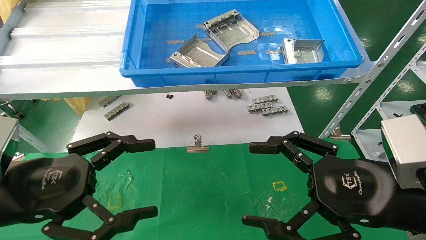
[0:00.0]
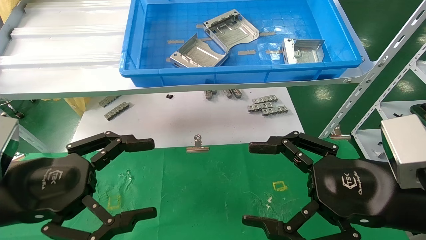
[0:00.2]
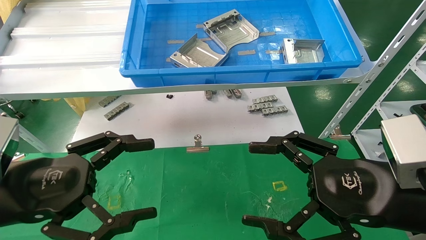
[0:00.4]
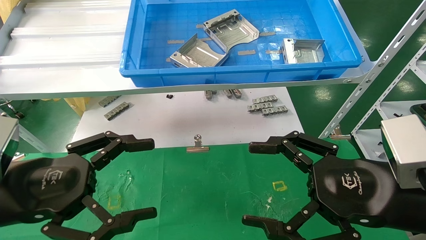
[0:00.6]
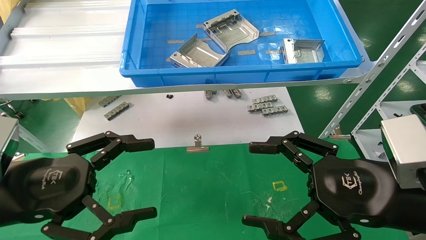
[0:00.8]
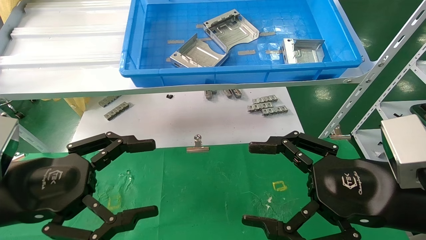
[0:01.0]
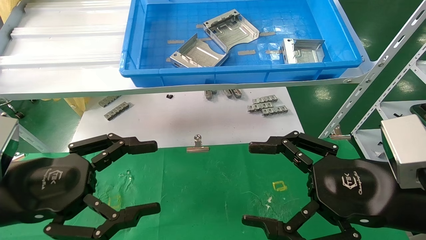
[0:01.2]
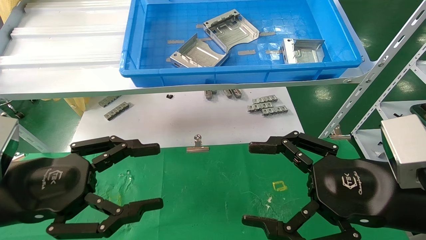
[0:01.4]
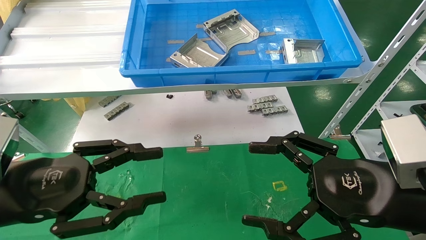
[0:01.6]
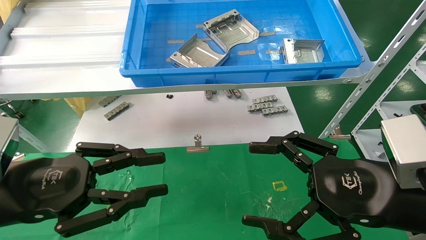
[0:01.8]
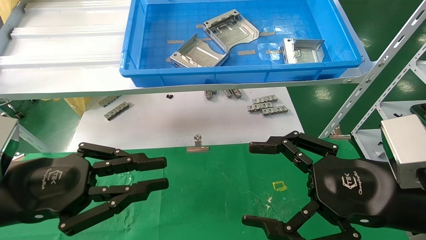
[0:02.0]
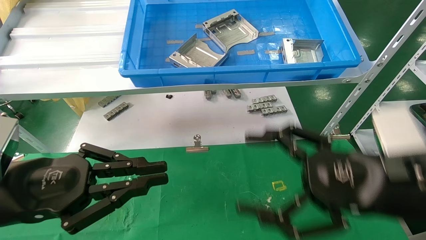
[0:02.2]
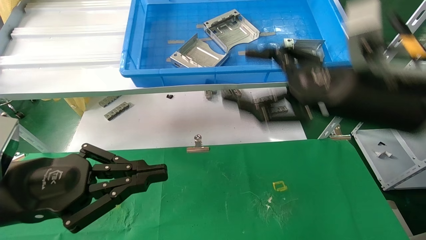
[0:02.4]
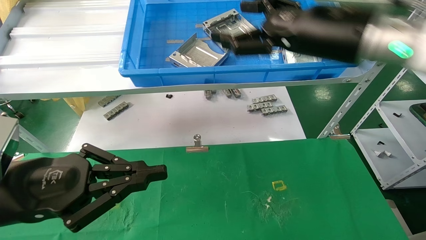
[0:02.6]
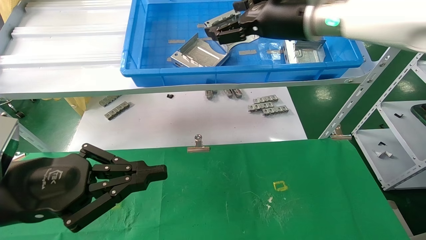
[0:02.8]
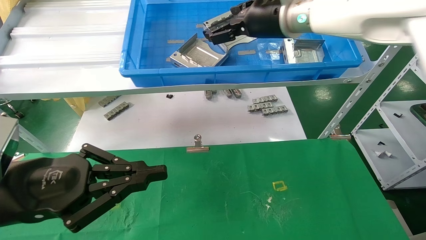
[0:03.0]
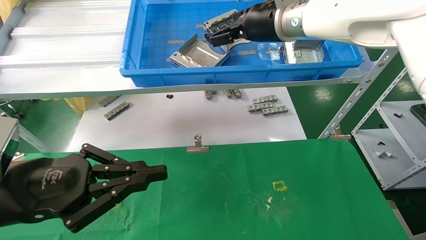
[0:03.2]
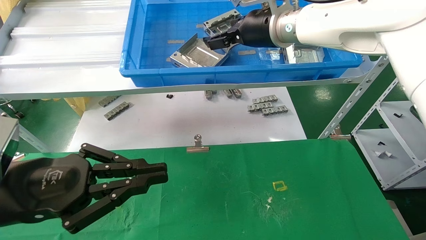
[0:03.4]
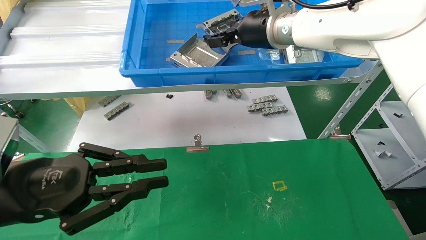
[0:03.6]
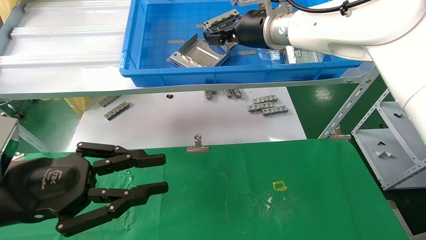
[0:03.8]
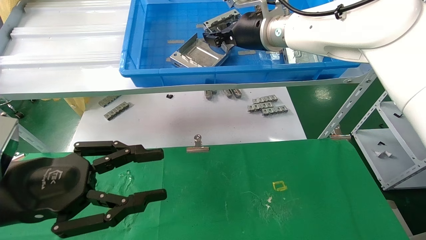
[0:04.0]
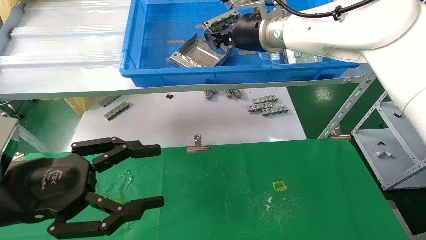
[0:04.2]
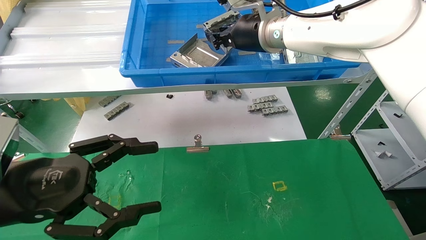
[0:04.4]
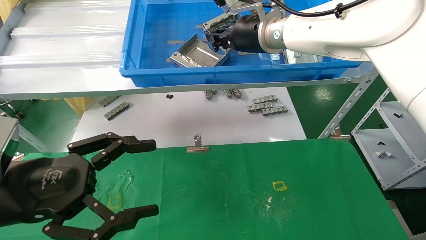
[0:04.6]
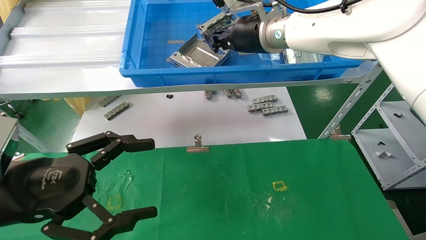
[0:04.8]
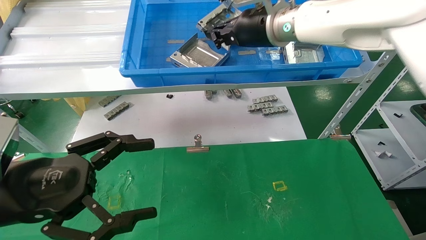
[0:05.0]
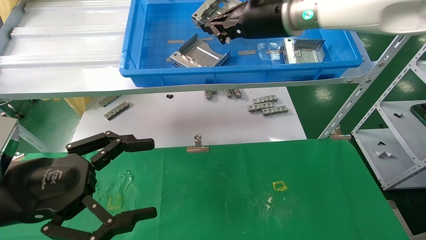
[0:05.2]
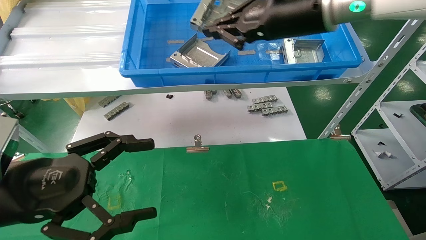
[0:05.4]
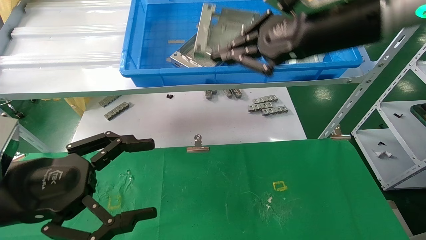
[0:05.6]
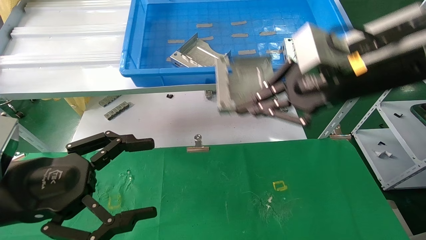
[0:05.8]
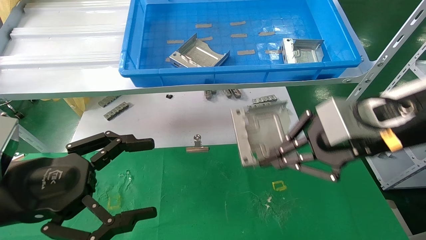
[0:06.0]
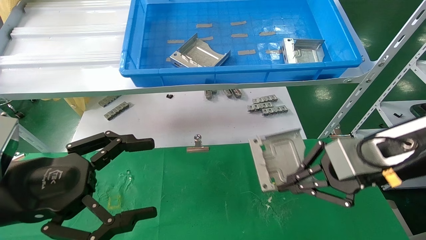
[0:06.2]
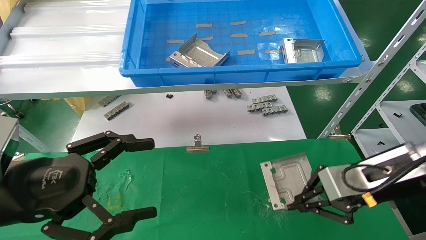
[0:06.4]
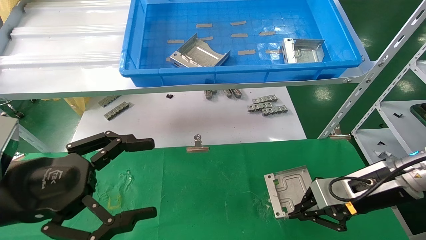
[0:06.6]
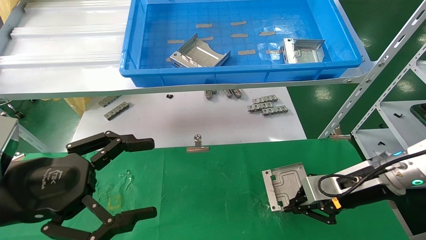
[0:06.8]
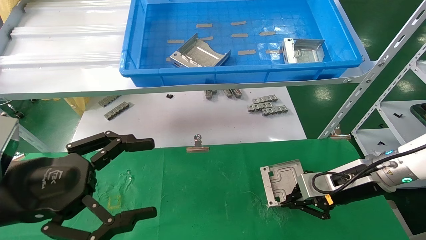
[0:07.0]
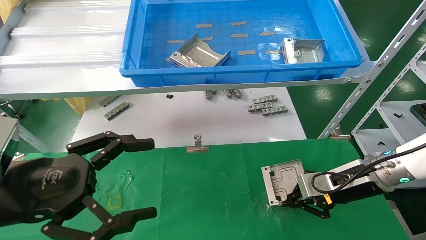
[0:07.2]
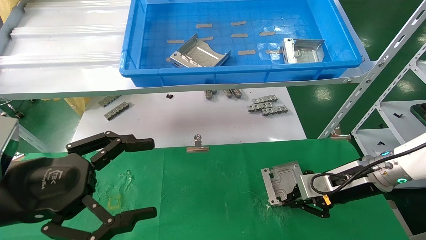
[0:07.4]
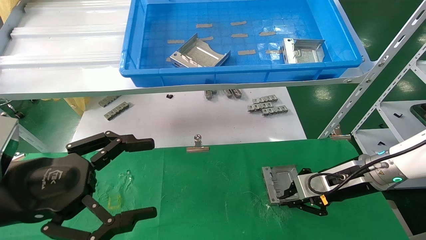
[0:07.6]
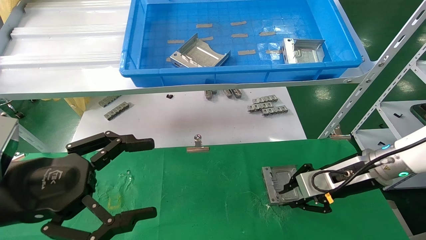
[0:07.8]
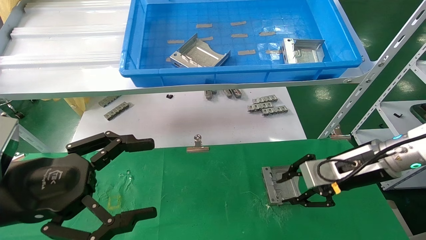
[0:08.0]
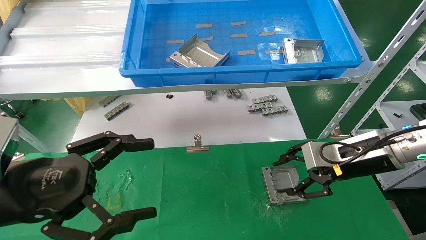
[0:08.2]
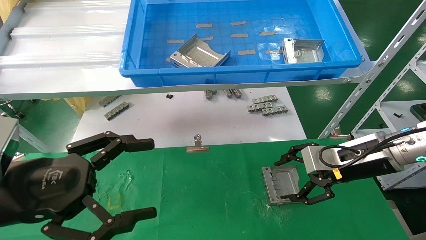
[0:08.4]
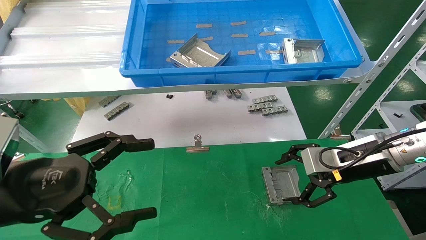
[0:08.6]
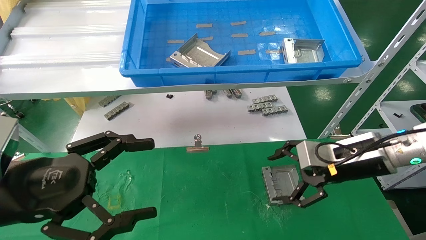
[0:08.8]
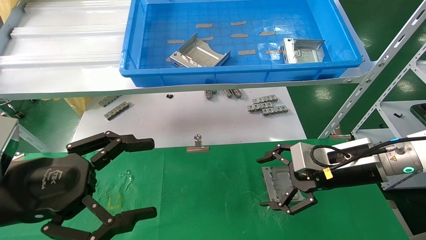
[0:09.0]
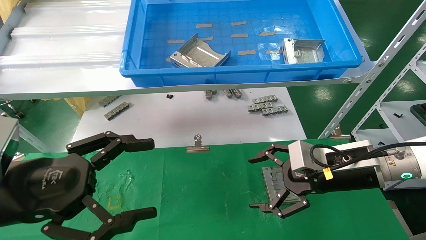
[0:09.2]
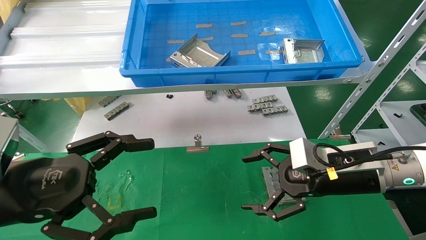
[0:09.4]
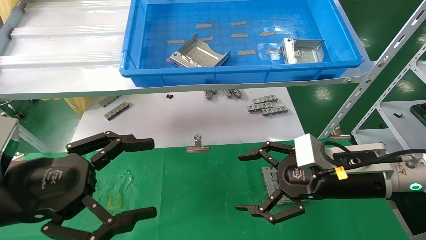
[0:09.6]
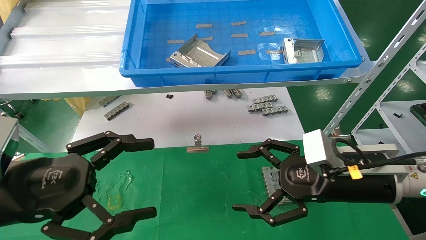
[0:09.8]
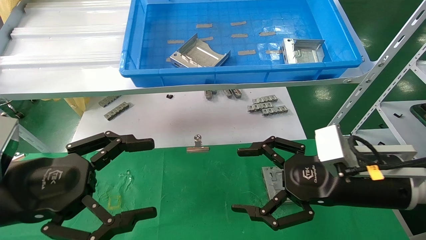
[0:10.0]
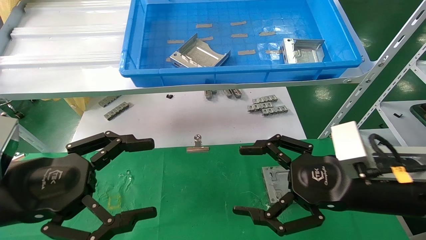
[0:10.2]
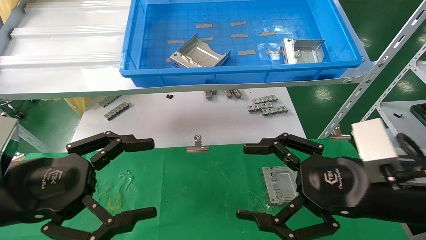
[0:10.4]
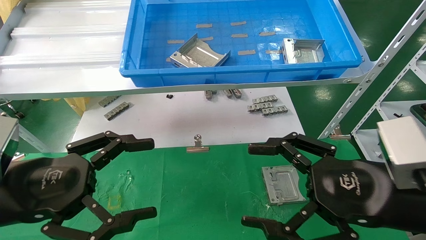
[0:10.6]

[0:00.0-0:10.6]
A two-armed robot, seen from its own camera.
Task of the whole recording: use the mechanical arm to pick up the parts and place them on the table.
Step, 0:01.6 to 0:05.2: Pick up the hard drive bracket from the feeding area.
Step, 0:05.4 to 0:08.2: Place the hard drive bracket into the box.
0:00.0 to 0:01.6: Neither gripper changes place.
0:01.6 to 0:03.0: The left gripper closes its fingers. Meanwhile the right gripper shifts some 35 cm forward, upward and to the left.
0:03.0 to 0:04.6: The right gripper closes its fingers. Meanwhile the left gripper opens up.
0:04.6 to 0:06.0: The right gripper is displaced backward, to the right and downward by some 25 cm.
0:06.0 to 0:07.6: The right gripper heads downward and forward, covering about 20 cm.
0:07.6 to 0:09.0: The right gripper ends up about 5 cm from where it was, and opens.
0:09.0 to 0:10.6: The right gripper moves backward, some 15 cm.
